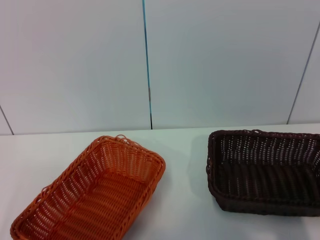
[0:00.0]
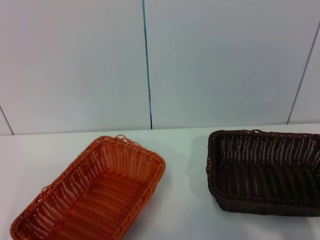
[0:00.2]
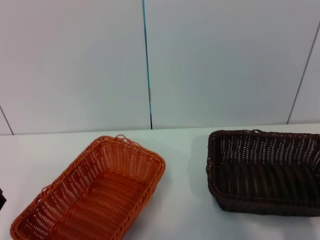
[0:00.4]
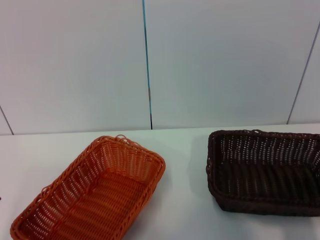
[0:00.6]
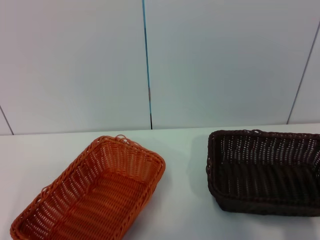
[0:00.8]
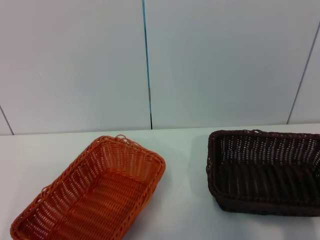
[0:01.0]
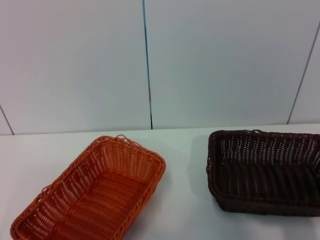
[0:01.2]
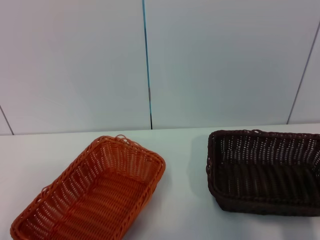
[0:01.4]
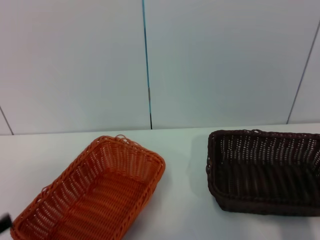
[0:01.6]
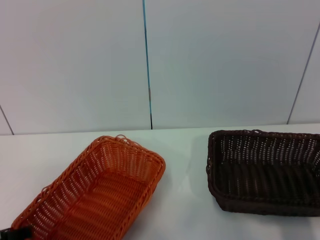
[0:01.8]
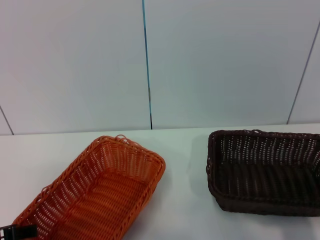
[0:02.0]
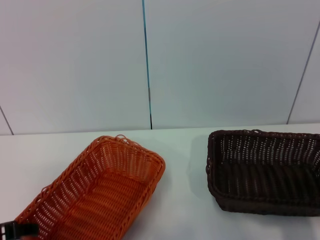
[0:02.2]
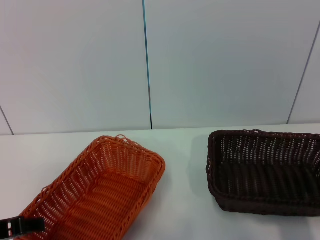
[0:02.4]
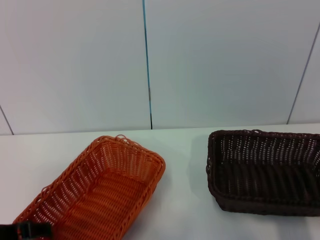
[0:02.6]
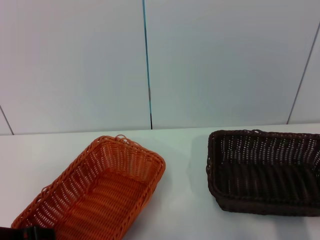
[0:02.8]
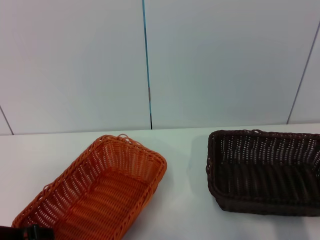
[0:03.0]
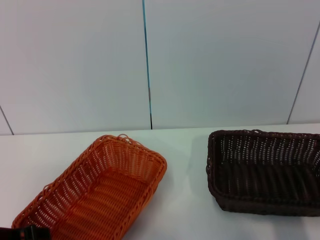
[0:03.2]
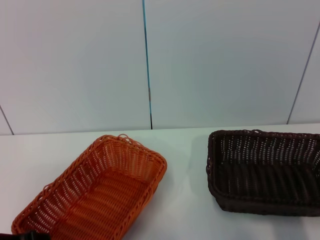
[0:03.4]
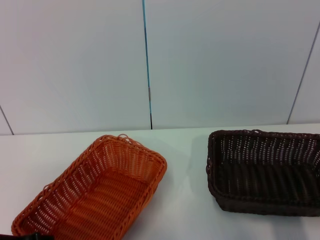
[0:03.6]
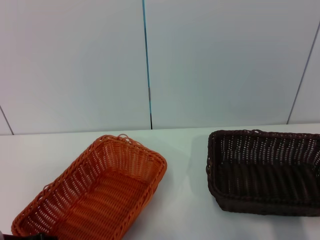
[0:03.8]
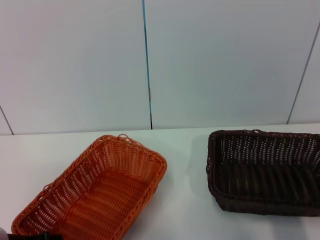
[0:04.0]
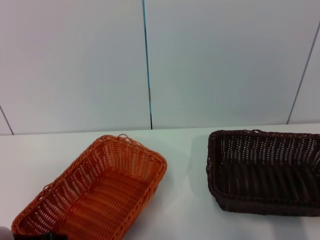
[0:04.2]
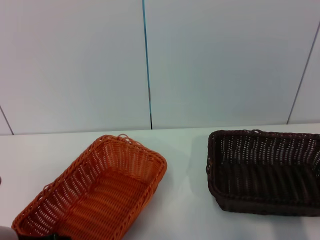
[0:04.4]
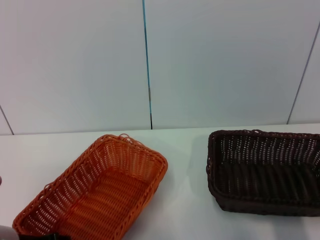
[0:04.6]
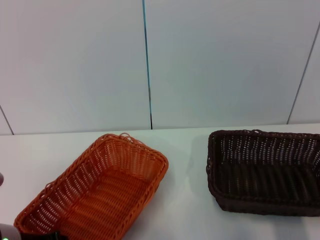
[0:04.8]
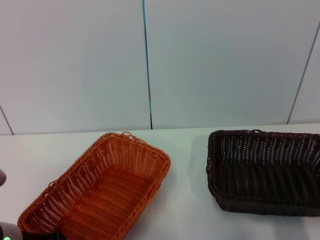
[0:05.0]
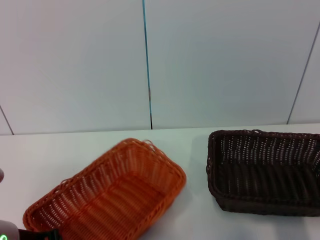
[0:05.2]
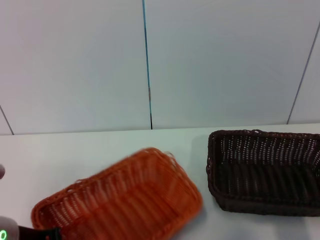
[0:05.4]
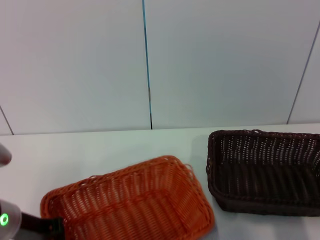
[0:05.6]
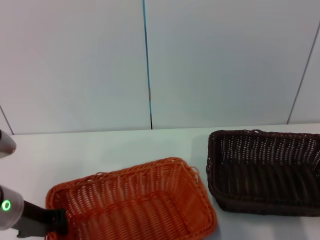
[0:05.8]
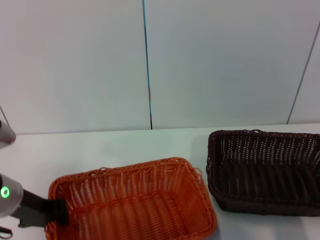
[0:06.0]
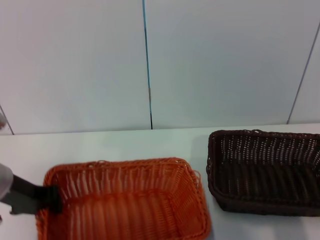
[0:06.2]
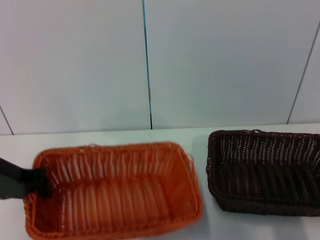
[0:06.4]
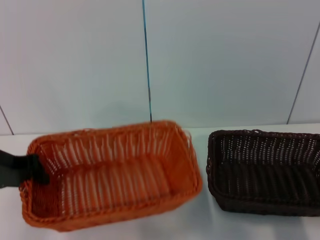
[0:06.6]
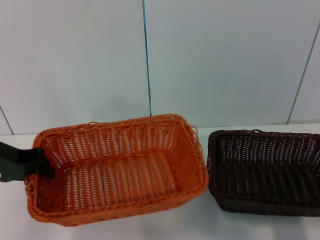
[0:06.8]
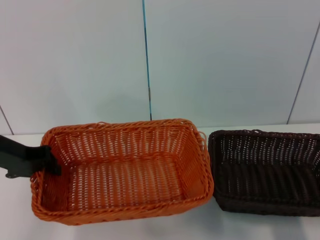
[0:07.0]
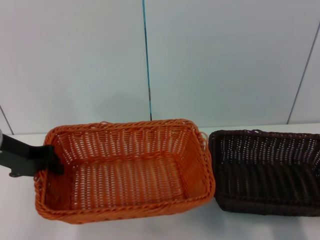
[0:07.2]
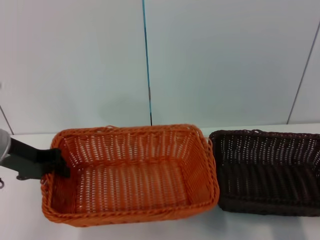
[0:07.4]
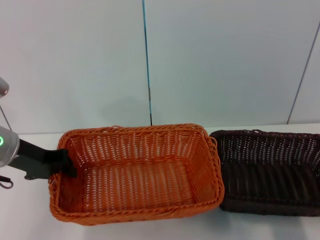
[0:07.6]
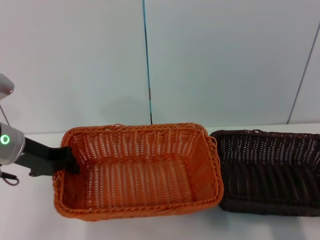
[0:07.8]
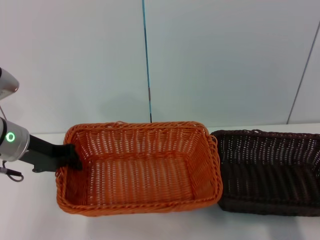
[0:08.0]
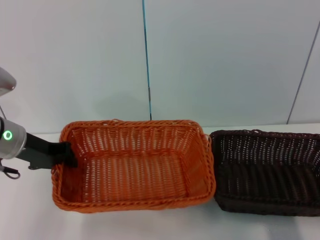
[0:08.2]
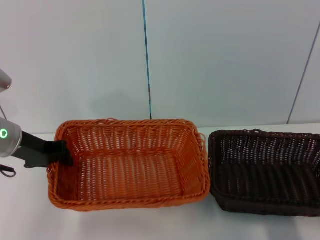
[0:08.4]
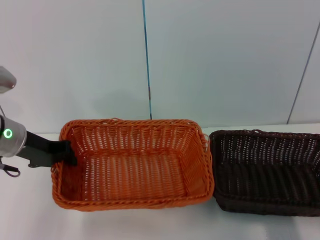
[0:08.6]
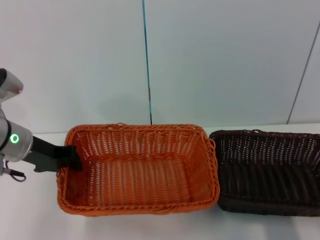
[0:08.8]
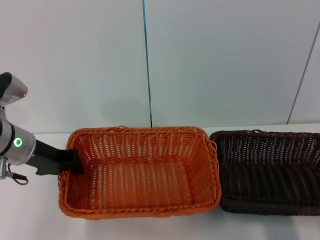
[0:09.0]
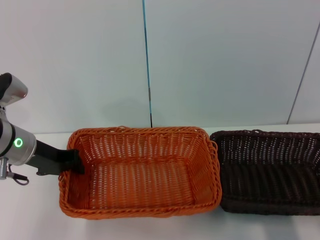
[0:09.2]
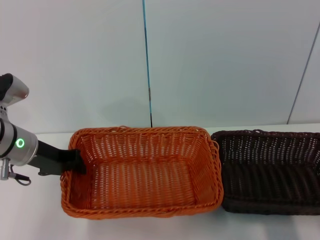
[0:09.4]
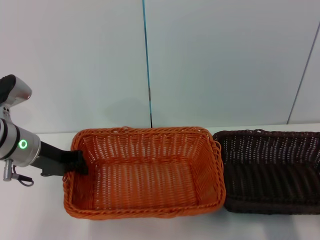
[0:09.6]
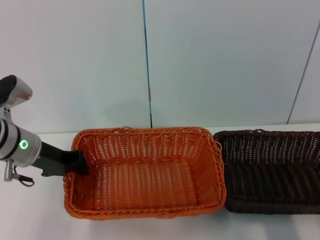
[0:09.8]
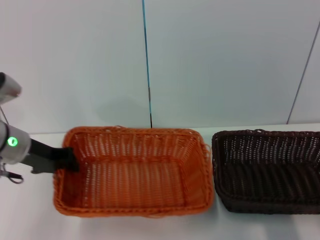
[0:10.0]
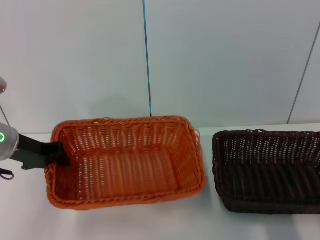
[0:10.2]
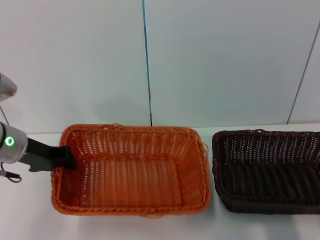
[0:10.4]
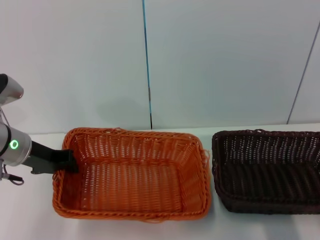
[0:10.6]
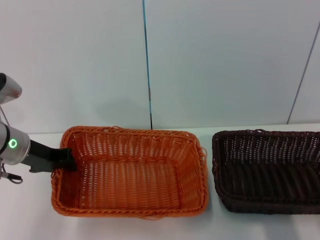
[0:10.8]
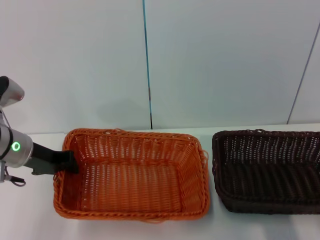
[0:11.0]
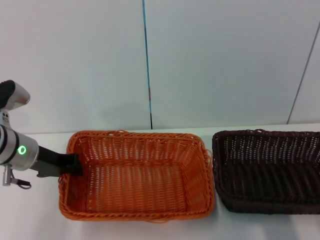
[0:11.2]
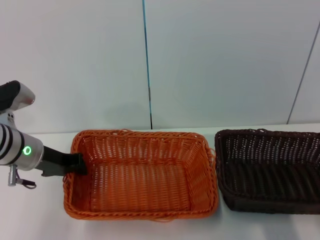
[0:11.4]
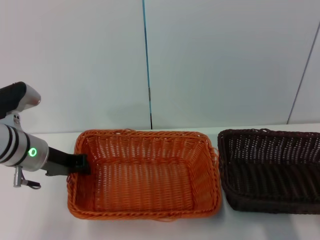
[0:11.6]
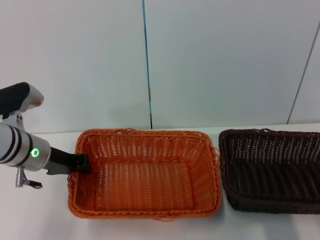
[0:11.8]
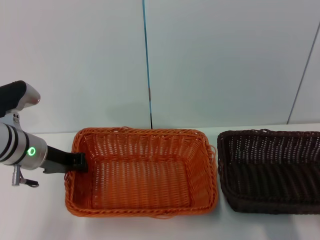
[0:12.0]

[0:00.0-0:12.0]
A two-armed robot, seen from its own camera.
Step, 0:00.0 to 0:04.8: Pick up the light basket with the left gripper.
0:01.6 to 0:03.0: The left gripper travels forward by roughly 10 cm.
0:04.4 to 0:06.0: The left gripper heads forward, covering roughly 5 cm, and closes.
0:06.0 to 0:07.6: The left gripper goes approximately 5 cm upward.
0:07.6 to 0:10.4: The grippers stay close to where they were, moving slightly.
0:10.4 to 0:12.0: There are only small adjustments of the grippers.

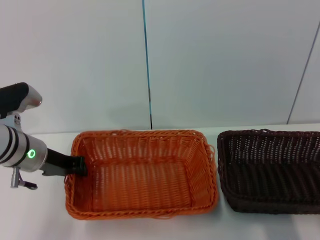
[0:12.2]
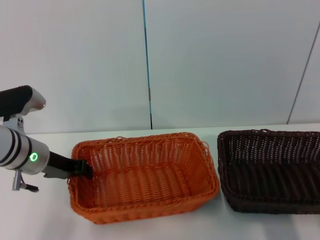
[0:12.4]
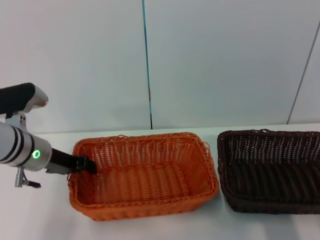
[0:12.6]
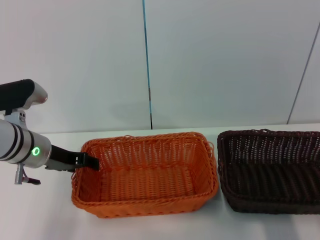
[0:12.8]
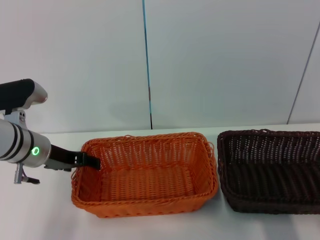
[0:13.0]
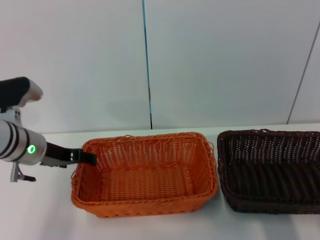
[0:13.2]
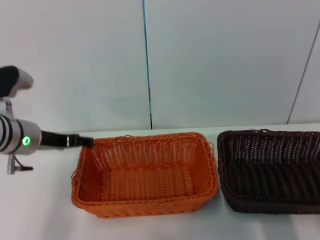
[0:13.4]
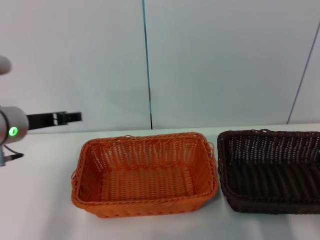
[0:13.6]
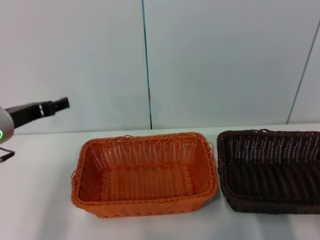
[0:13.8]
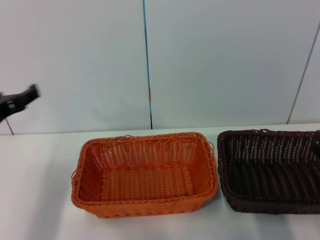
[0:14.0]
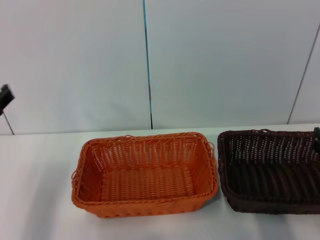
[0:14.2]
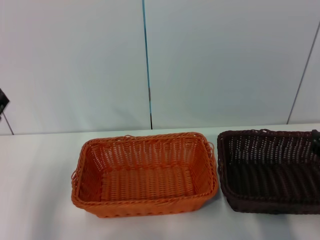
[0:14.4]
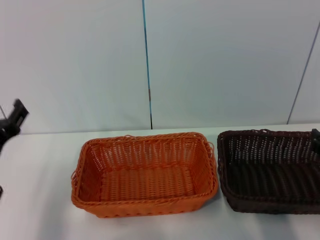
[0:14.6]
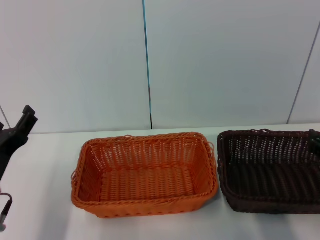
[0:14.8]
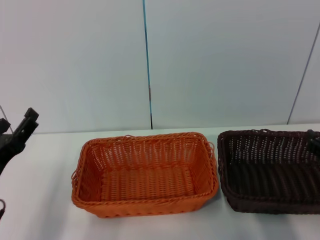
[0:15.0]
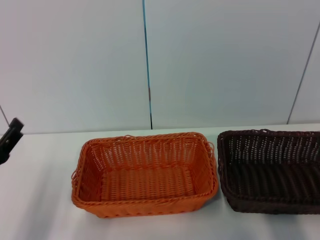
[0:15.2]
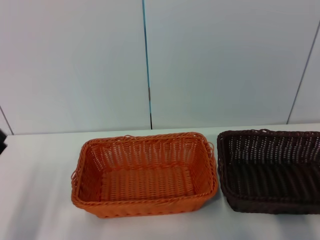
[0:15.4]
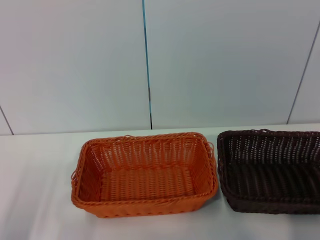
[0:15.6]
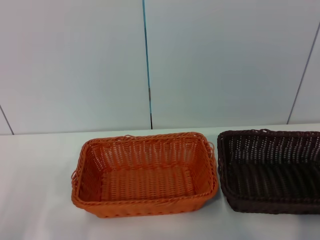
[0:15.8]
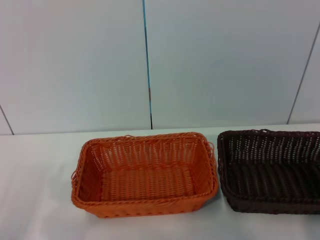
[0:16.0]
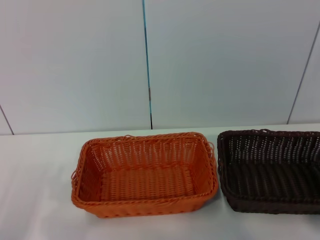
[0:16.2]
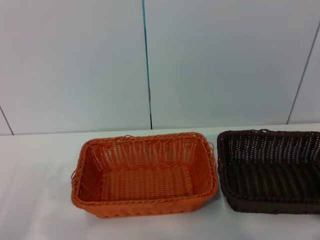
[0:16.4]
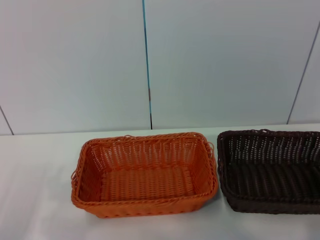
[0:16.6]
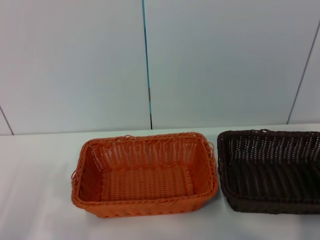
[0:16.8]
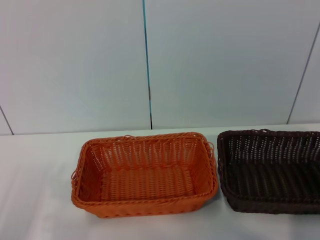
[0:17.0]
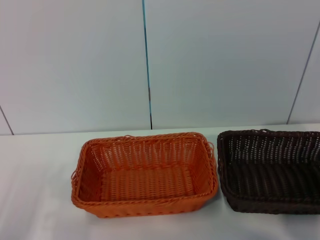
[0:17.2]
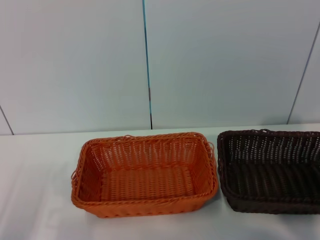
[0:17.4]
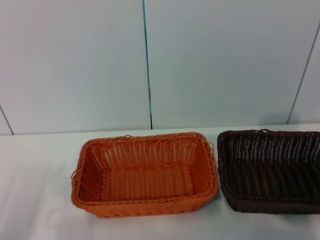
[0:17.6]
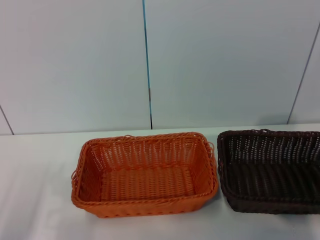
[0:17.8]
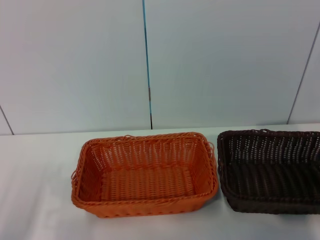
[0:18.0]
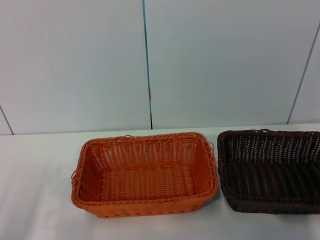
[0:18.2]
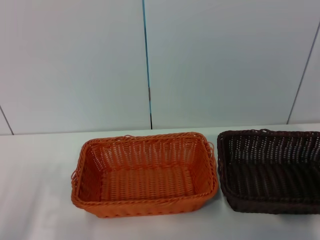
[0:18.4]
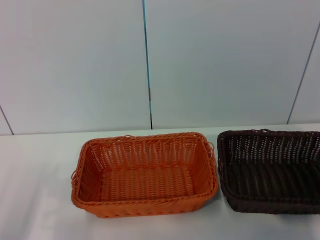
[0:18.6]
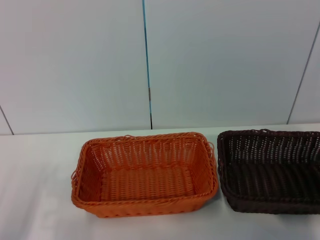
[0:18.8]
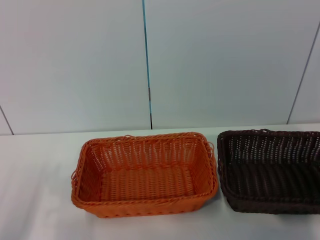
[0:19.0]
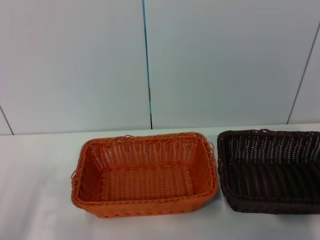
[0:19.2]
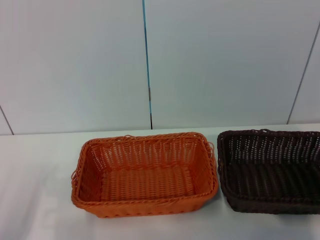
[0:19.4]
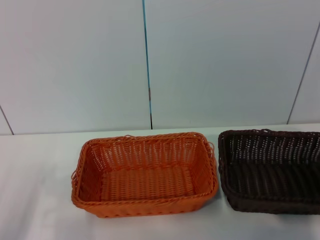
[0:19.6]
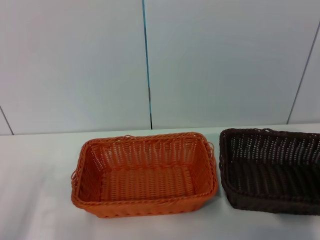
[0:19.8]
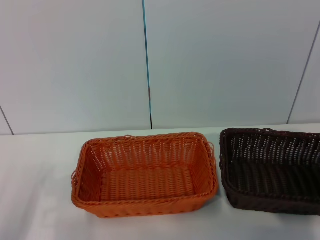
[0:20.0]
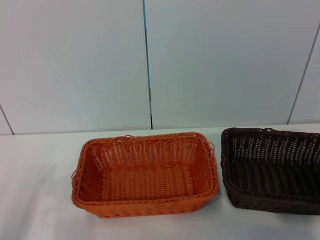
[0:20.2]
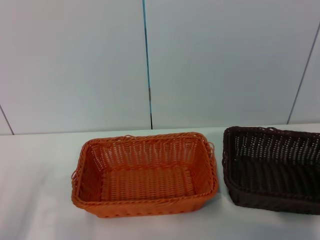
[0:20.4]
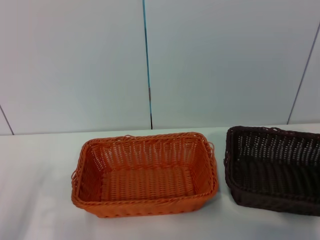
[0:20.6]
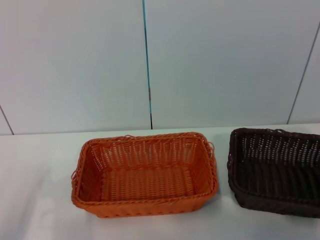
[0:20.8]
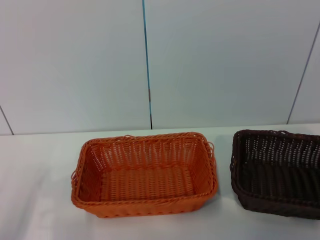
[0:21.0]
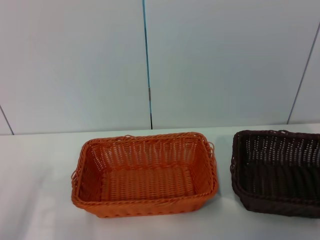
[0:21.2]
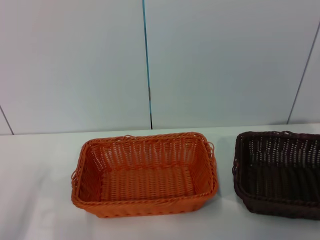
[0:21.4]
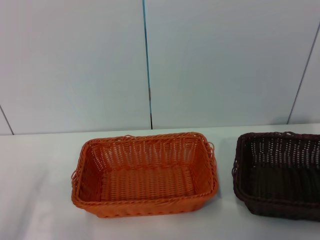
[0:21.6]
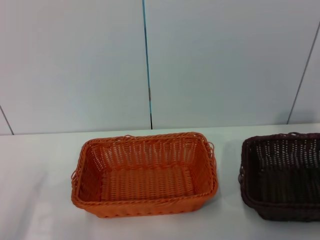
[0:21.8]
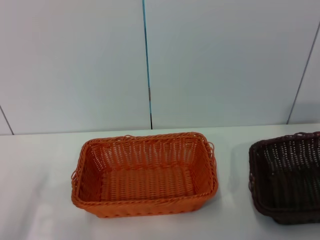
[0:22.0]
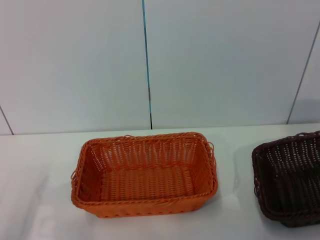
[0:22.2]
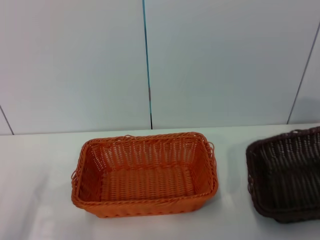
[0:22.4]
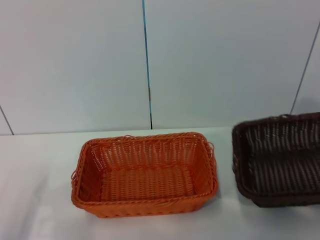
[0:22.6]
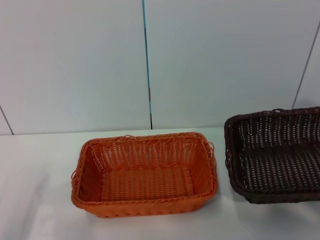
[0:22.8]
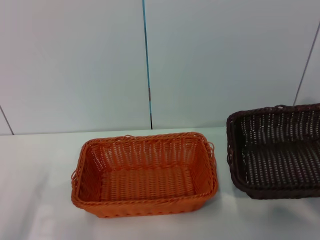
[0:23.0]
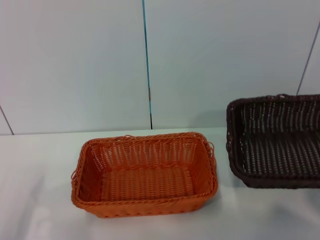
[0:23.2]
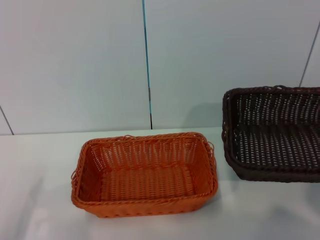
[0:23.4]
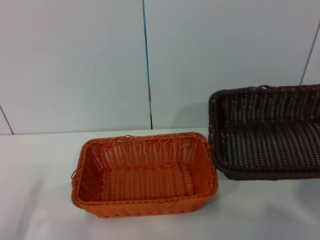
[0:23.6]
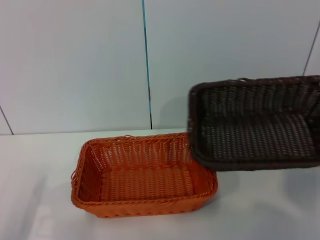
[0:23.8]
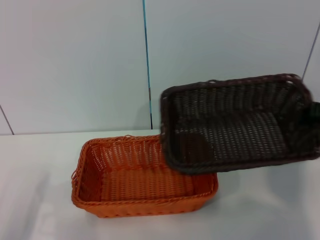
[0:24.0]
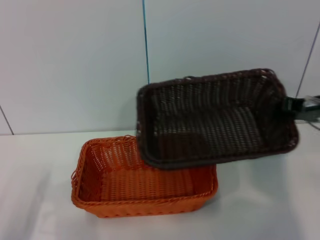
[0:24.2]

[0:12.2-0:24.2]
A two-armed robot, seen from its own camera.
Step, 0:13.0 to 0:22.2: Pick up the dark basket with the right gripper.
0:12.2 to 0:13.8: The left gripper moves some 5 cm, and opens up.
0:13.8 to 0:15.2: The left gripper goes approximately 15 cm backward and downward.
0:15.2 to 0:16.6: The left gripper travels backward by roughly 5 cm, while the right gripper shifts roughly 15 cm to the right and forward.
0:16.6 to 0:18.2: The right gripper goes some 10 cm forward and downward.
0:18.2 to 0:19.8: The right gripper closes its fingers.
0:19.8 to 0:21.2: The grippers make only small movements.
0:21.2 to 0:22.6: The right gripper moves upward, some 10 cm.
0:22.6 to 0:24.2: The right gripper heads to the left and forward, covering about 15 cm.
